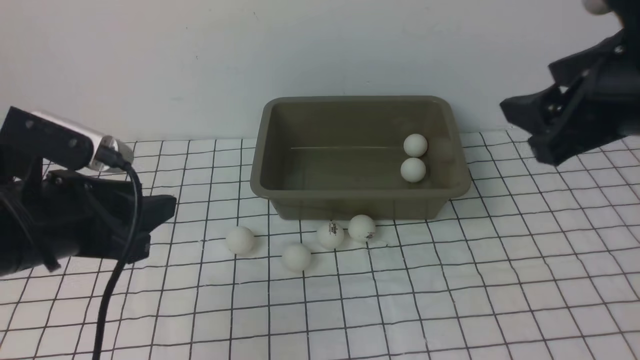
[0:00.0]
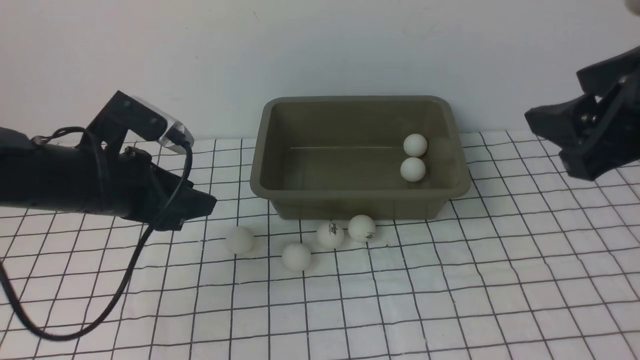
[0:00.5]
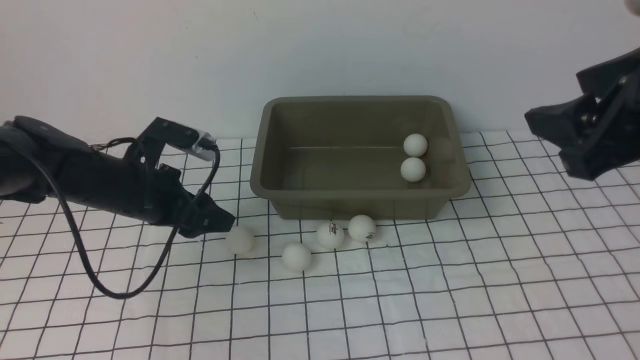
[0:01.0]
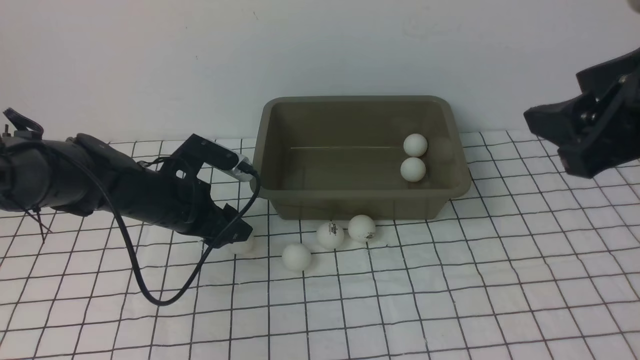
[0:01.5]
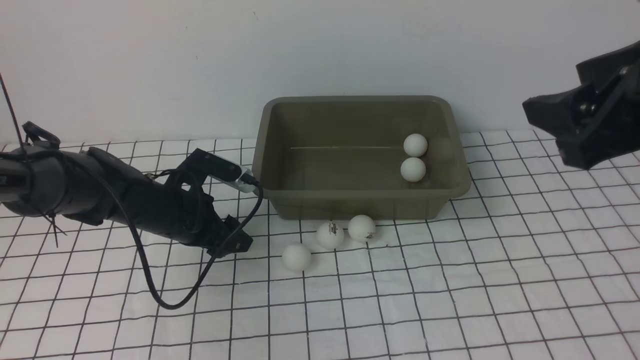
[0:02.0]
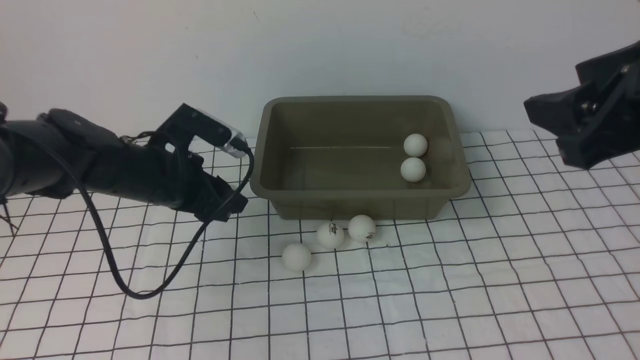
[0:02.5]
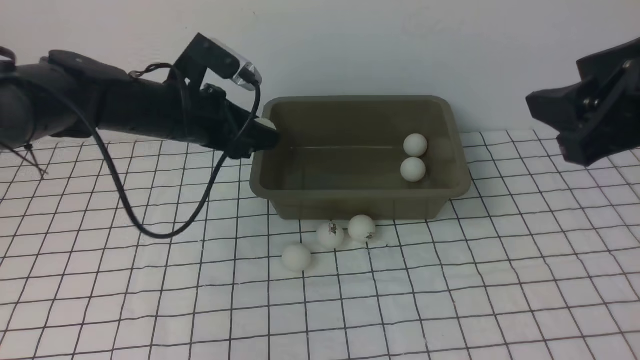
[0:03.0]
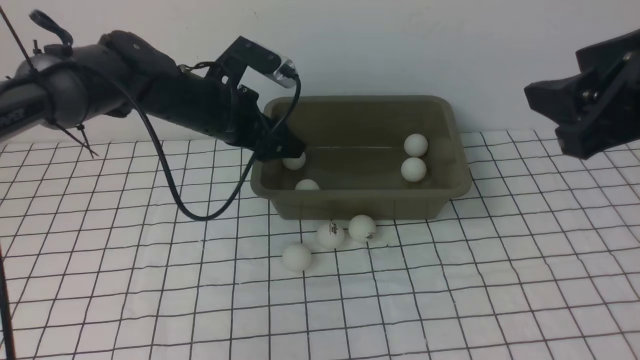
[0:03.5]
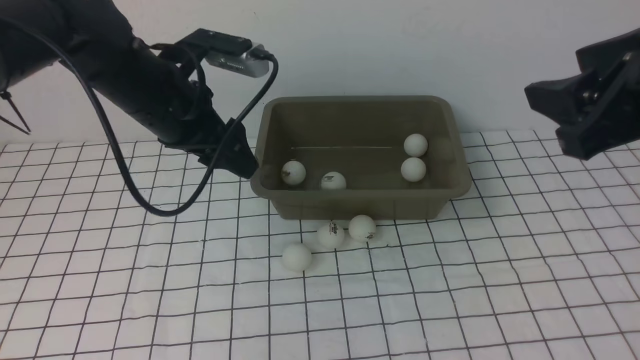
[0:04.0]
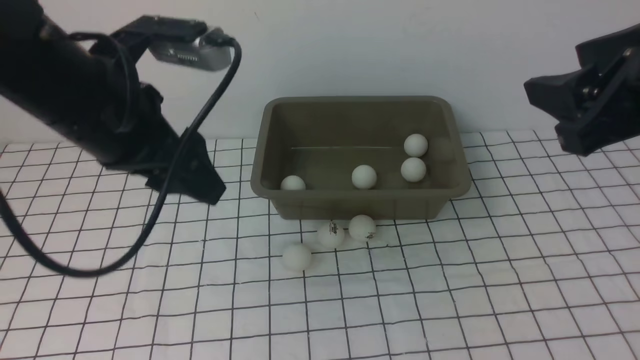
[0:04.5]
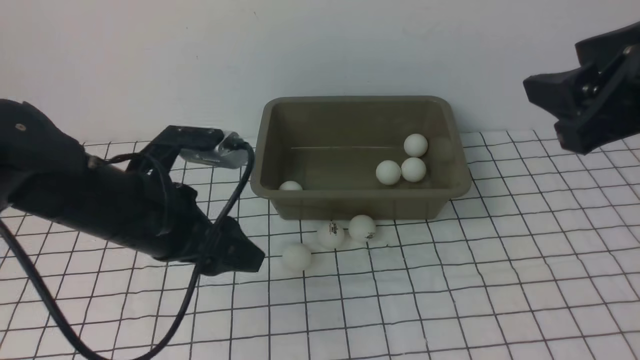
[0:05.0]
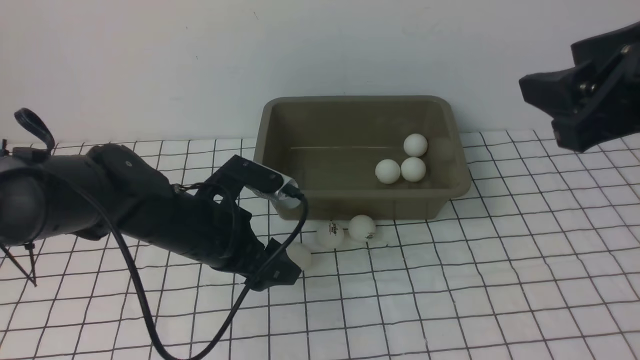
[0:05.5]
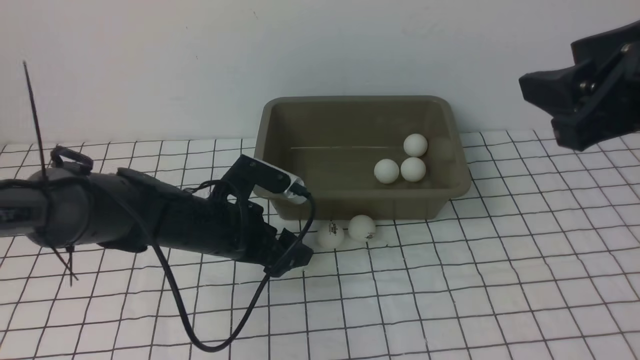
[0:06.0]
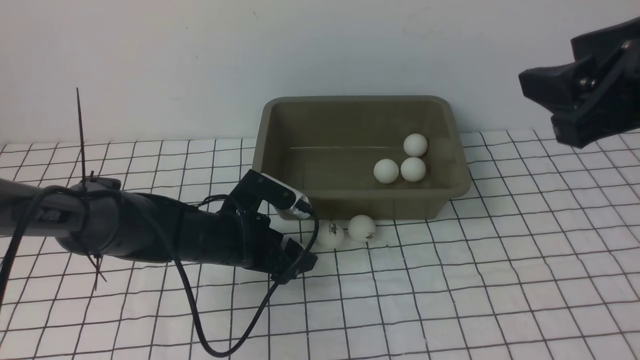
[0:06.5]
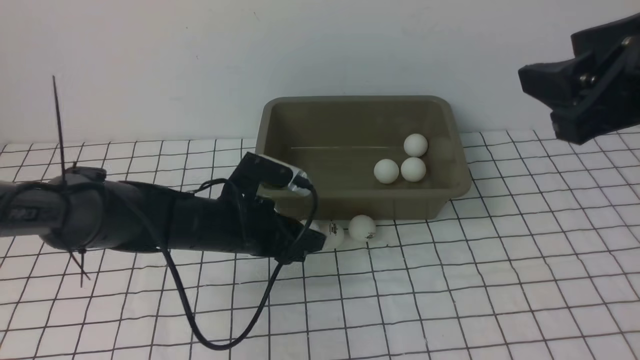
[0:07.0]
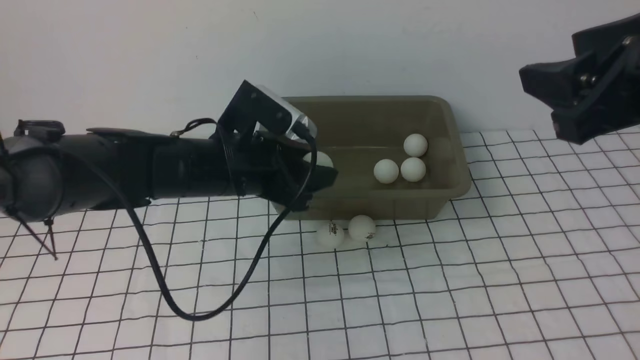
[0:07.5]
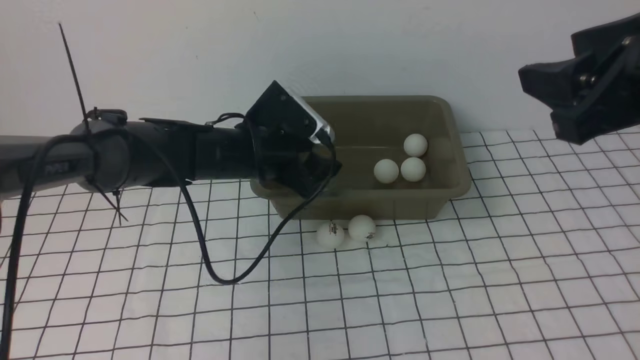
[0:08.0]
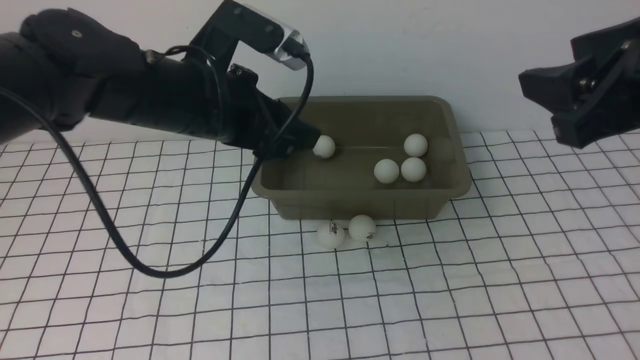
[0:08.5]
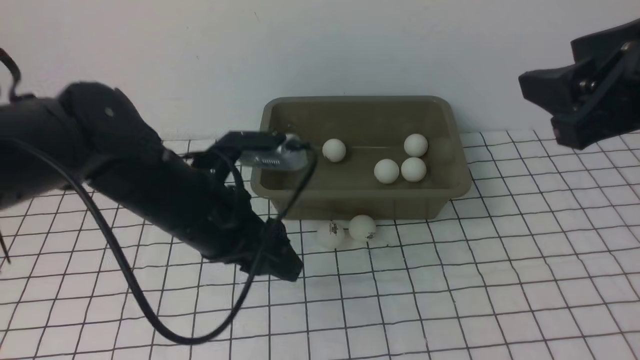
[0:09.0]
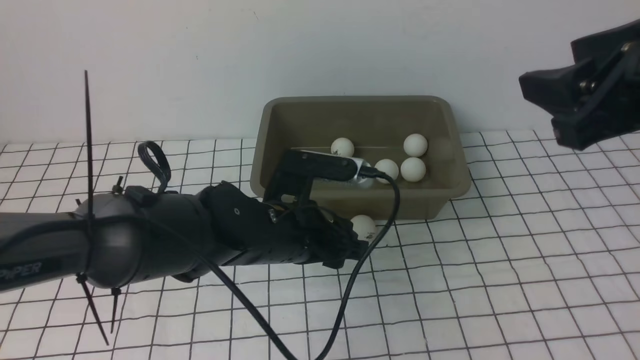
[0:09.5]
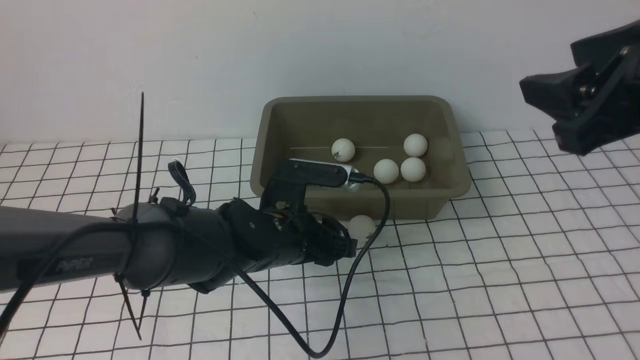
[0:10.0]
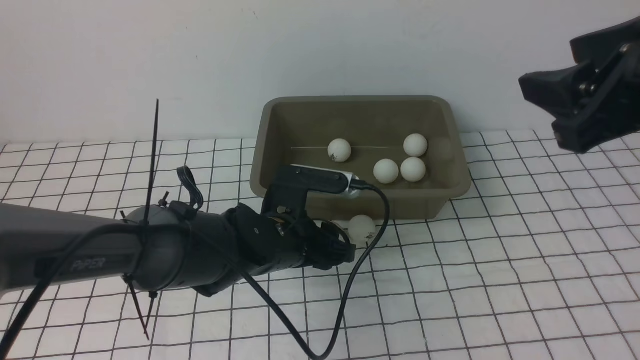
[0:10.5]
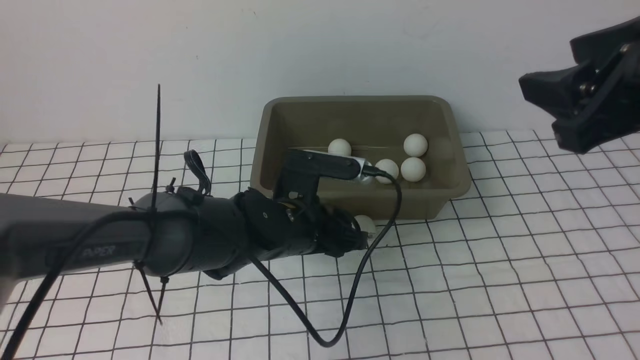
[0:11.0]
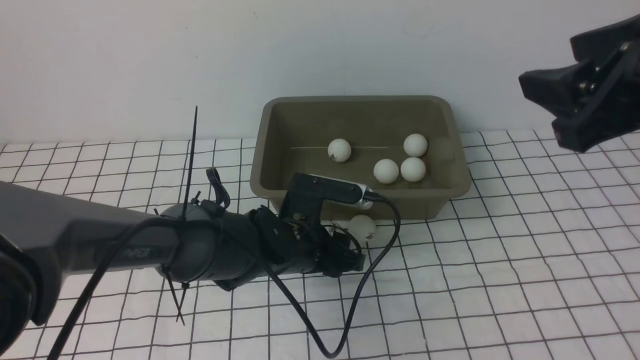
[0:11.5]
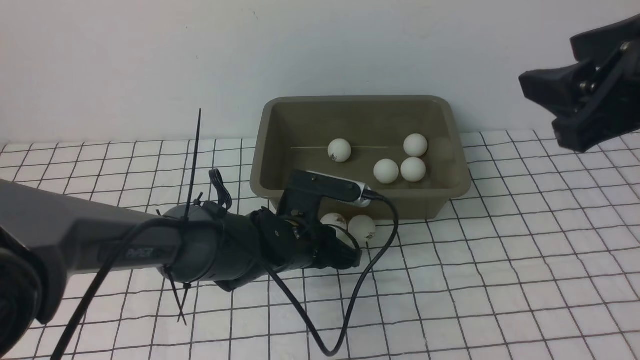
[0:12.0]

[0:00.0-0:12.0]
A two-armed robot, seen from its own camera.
Step, 0:00.0 to 0:02.5: use the left arm to clamp the table tennis ball closest to it.
Step, 0:04.0 to 0:07.0: use the left arm to clamp the table tennis ball closest to it.
Step, 0:07.5 to 0:08.0: use the left arm to put the table tennis ball into the box.
0:00.0 to 0:02.0: The left gripper moves downward and forward, roughly 20 cm.
0:02.0 to 0:04.0: The left gripper shifts approximately 20 cm upward.
0:04.0 to 0:06.0: The left gripper moves downward, some 15 cm.
0:06.0 to 0:08.0: The left gripper moves upward, about 10 cm.
0:08.0 to 0:10.0: The left gripper heads downward, to the right and backward, covering roughly 15 cm.
0:10.0 to 0:12.0: The left gripper closes.

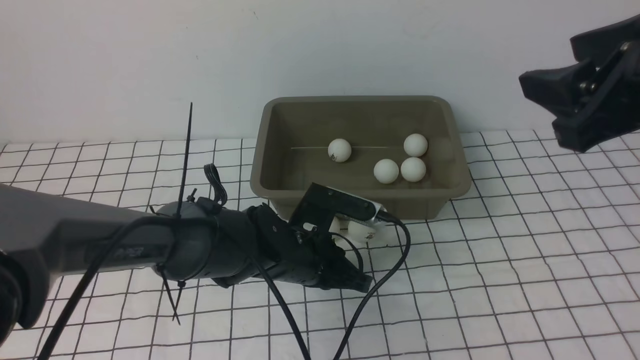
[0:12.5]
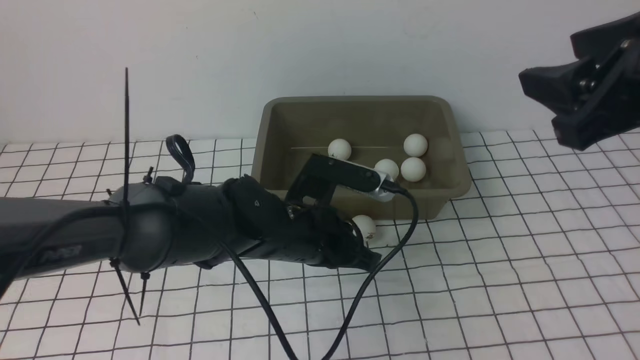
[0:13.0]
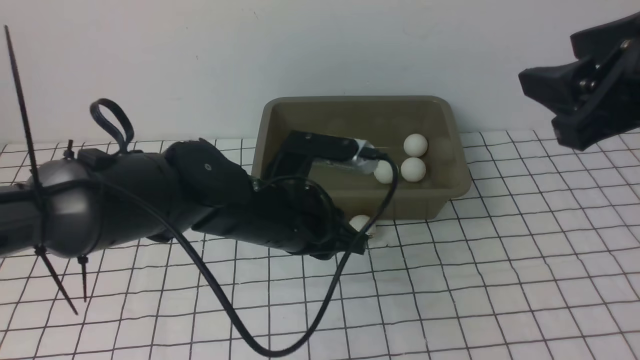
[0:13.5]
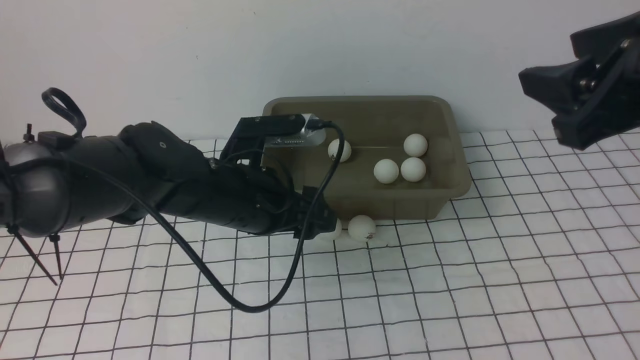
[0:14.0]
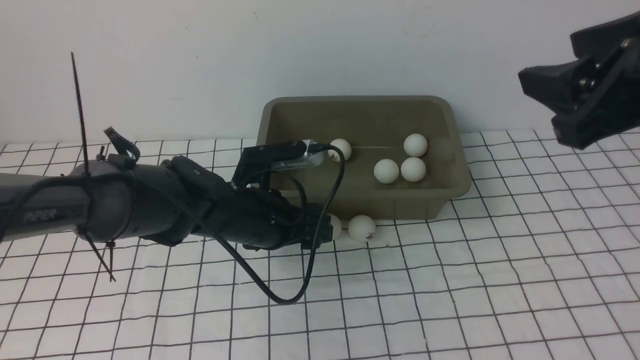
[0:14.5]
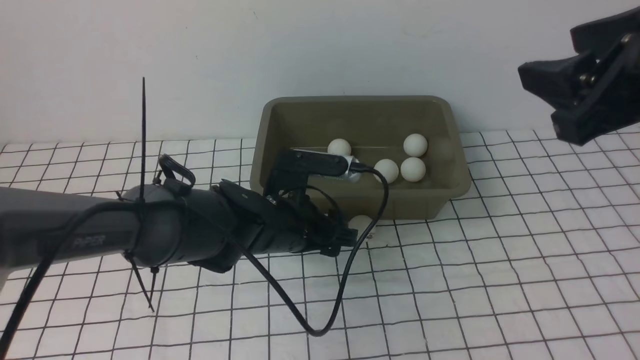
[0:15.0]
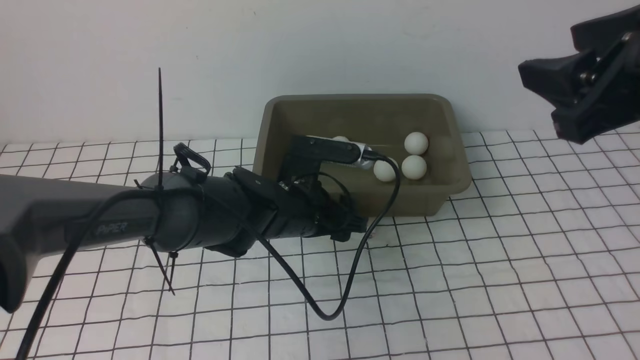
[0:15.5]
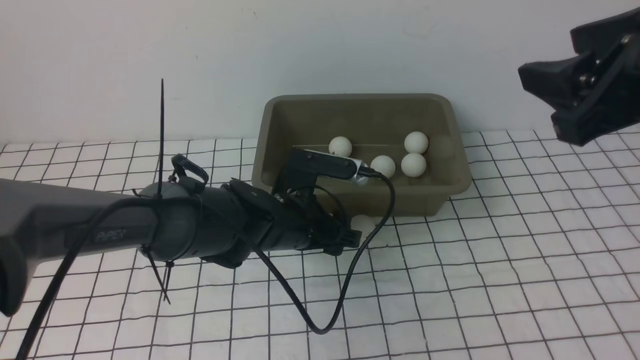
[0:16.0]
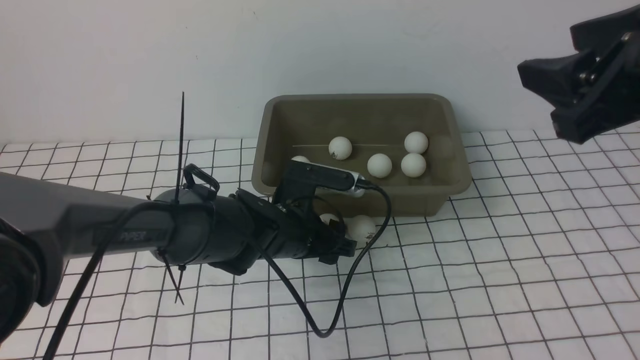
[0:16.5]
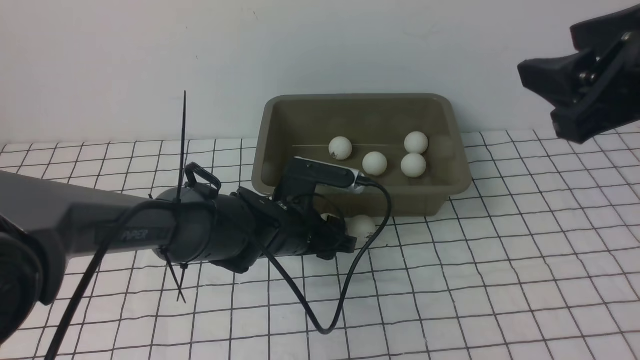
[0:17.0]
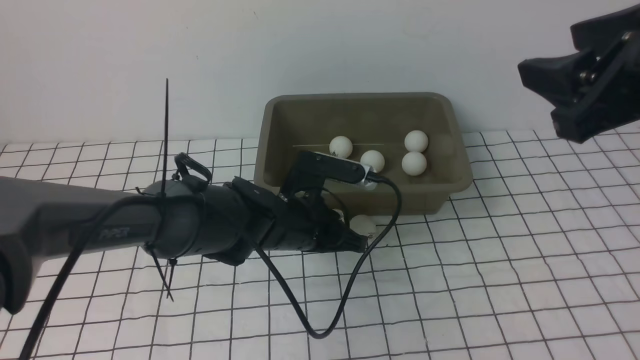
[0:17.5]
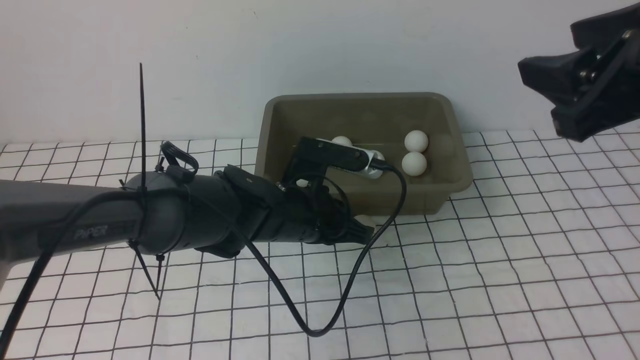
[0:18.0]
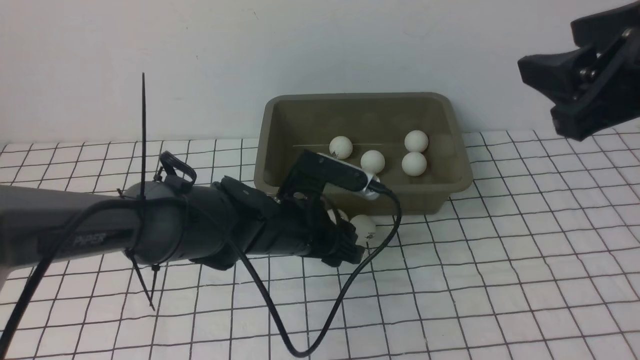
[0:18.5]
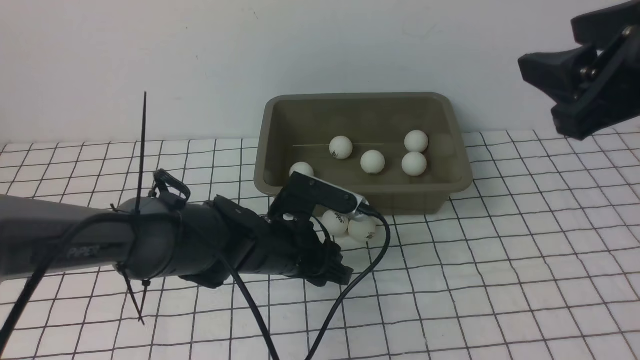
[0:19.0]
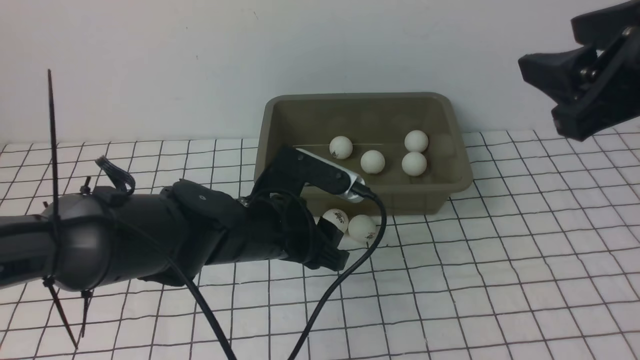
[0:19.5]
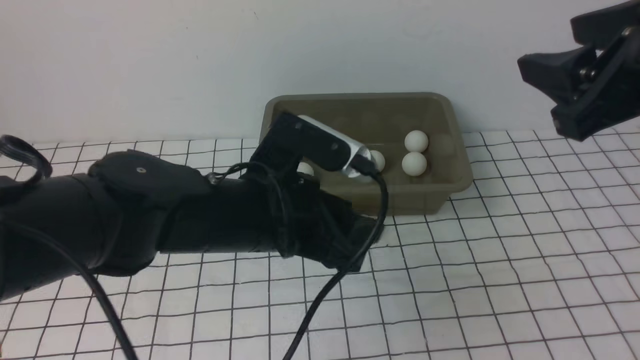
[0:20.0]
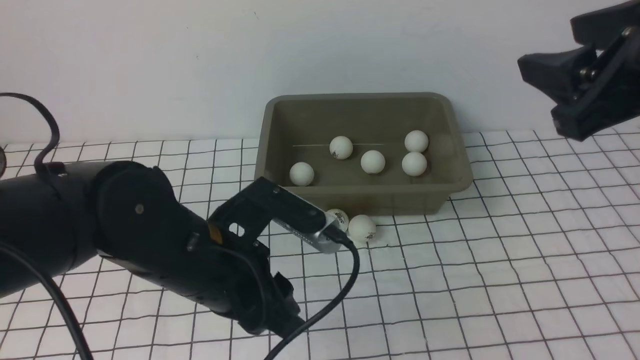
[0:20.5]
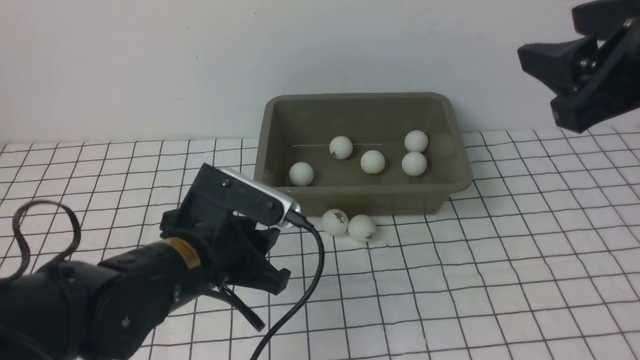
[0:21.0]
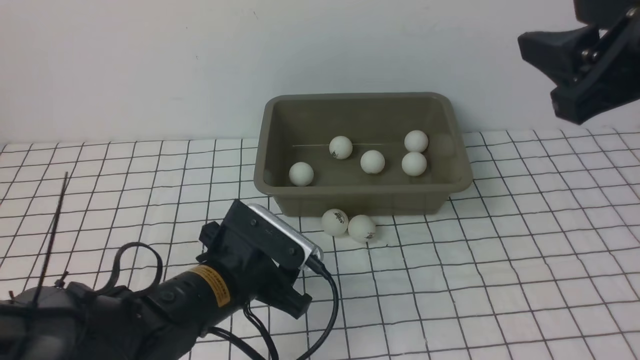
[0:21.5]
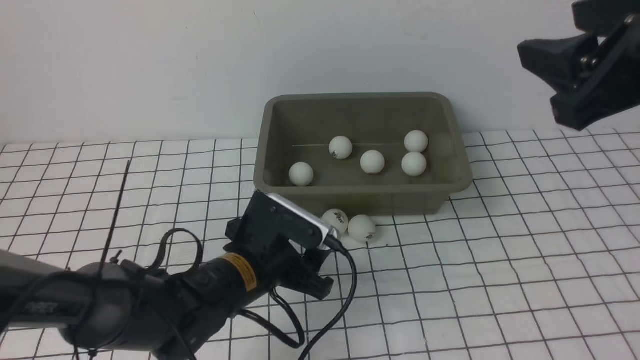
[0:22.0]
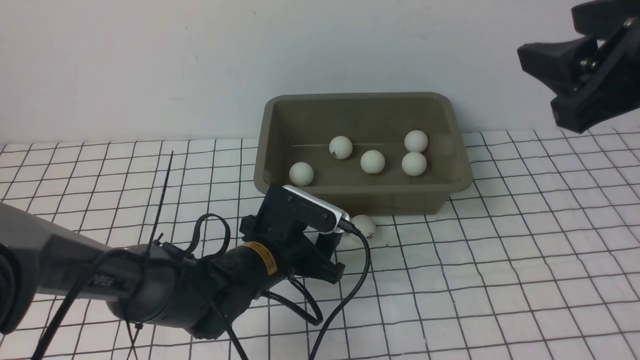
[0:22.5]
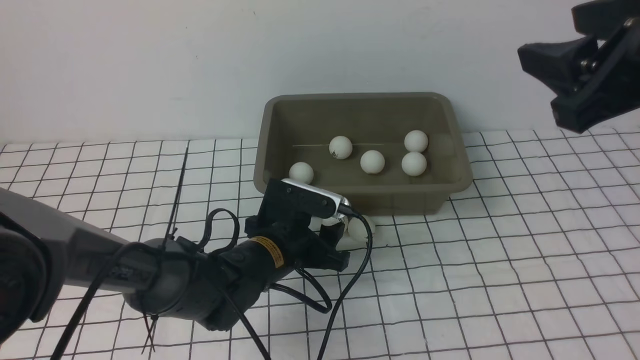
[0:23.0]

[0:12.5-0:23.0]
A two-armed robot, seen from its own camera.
0:12.5 to 0:14.5: The left gripper changes place by about 5 cm, and opens.
0:14.5 to 0:16.5: The grippers move only a little.
0:16.5 to 0:19.0: The left gripper closes, then opens again.
0:19.0 to 0:21.0: The left gripper is displaced backward, upward and to the left by about 10 cm.
0:21.0 to 0:23.0: The left gripper shifts approximately 15 cm downward, forward and to the right.
